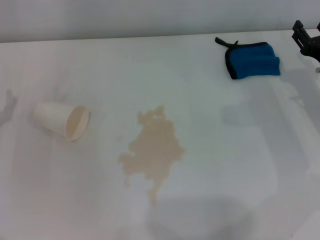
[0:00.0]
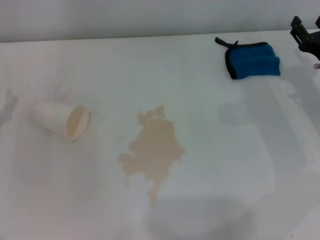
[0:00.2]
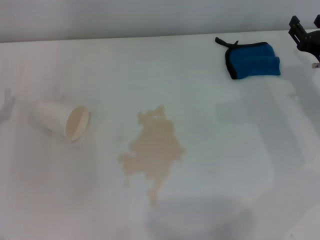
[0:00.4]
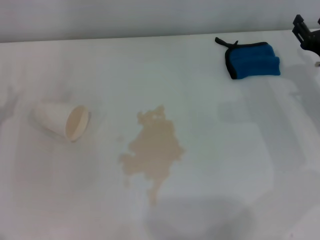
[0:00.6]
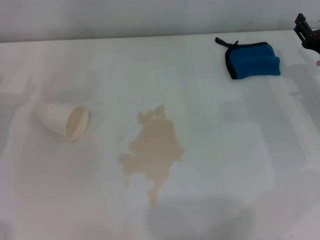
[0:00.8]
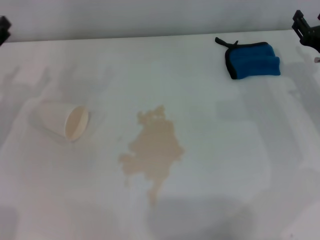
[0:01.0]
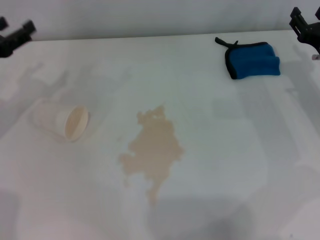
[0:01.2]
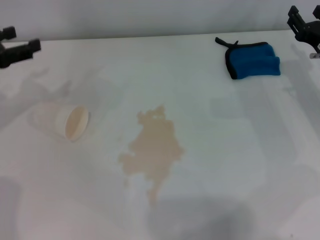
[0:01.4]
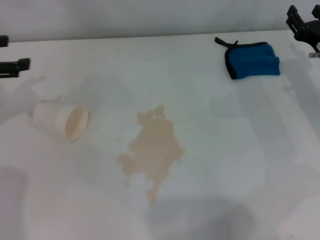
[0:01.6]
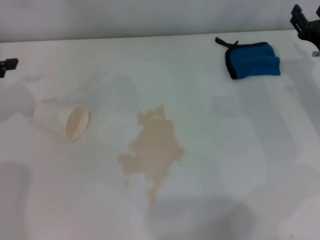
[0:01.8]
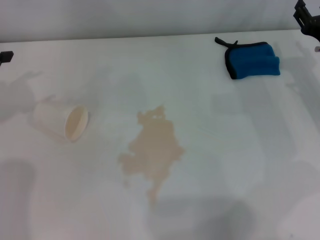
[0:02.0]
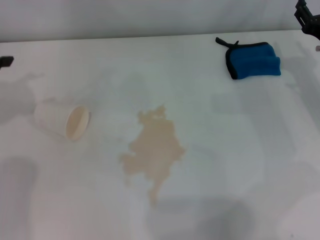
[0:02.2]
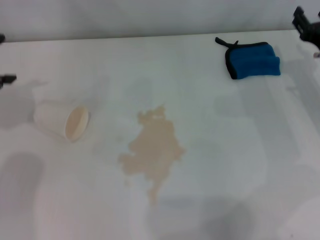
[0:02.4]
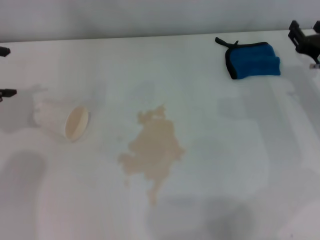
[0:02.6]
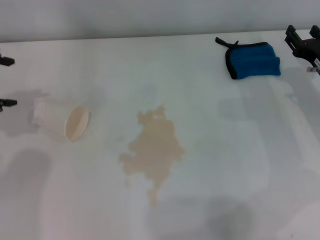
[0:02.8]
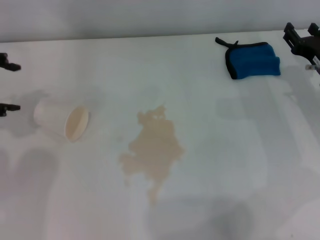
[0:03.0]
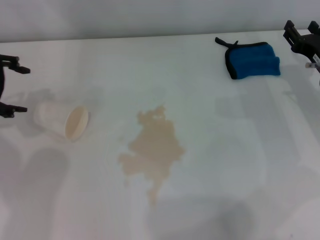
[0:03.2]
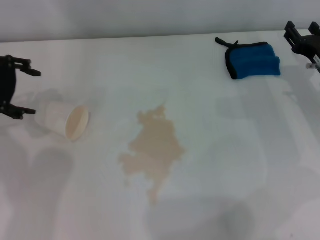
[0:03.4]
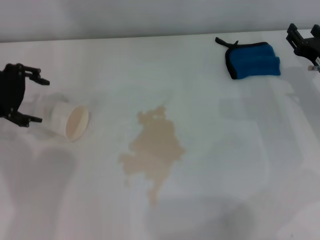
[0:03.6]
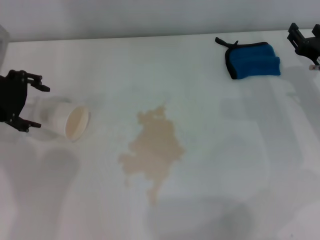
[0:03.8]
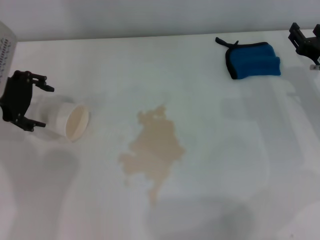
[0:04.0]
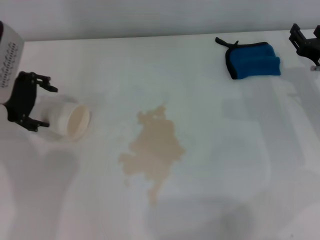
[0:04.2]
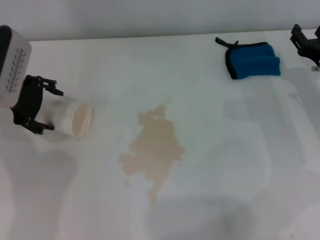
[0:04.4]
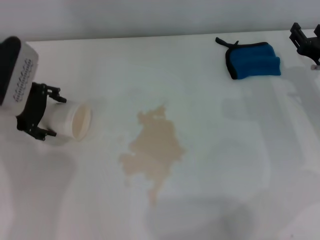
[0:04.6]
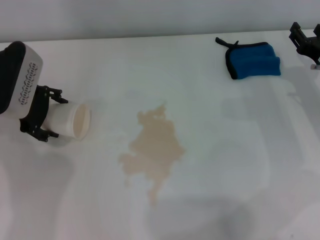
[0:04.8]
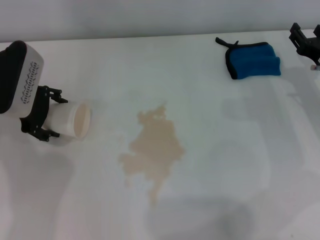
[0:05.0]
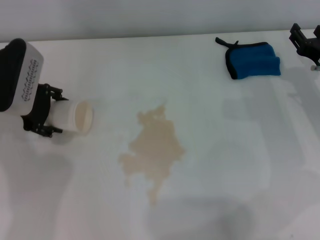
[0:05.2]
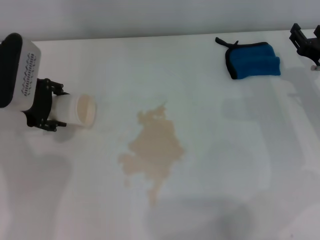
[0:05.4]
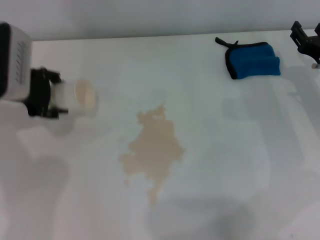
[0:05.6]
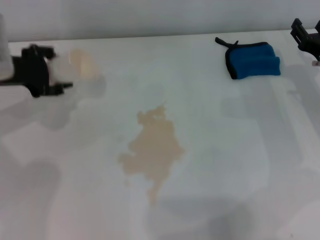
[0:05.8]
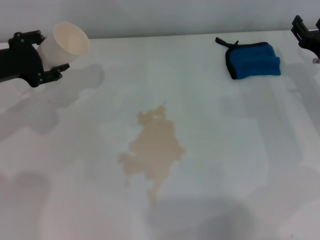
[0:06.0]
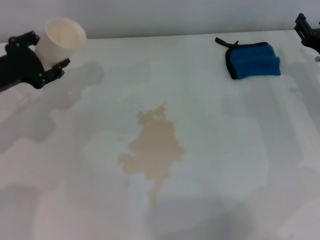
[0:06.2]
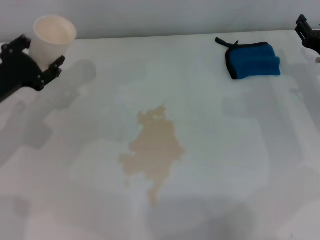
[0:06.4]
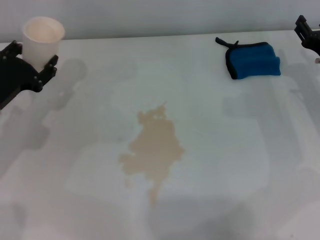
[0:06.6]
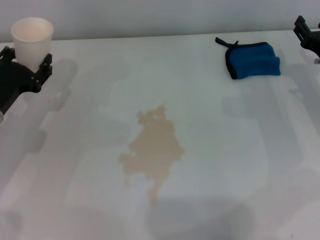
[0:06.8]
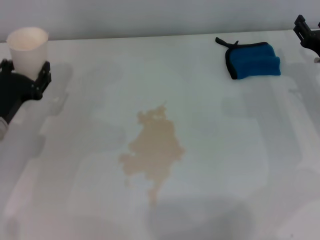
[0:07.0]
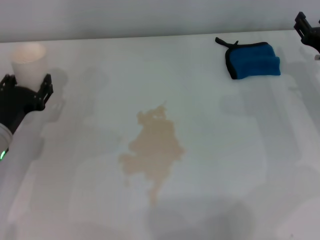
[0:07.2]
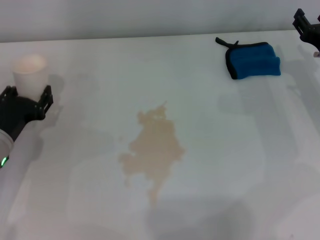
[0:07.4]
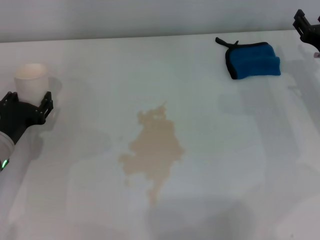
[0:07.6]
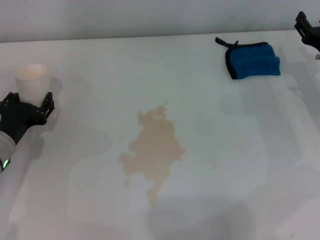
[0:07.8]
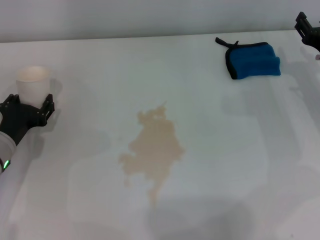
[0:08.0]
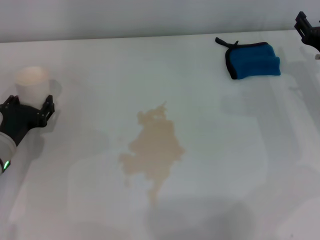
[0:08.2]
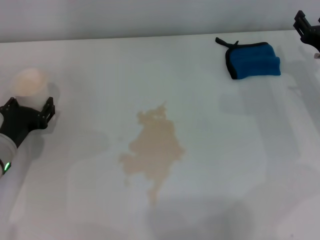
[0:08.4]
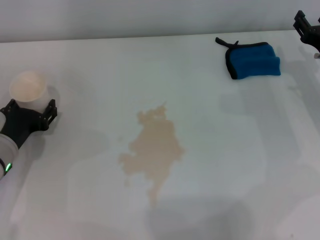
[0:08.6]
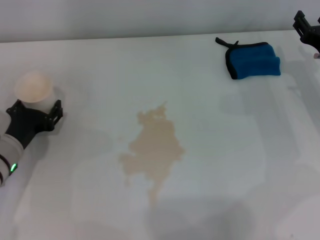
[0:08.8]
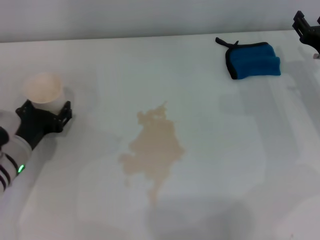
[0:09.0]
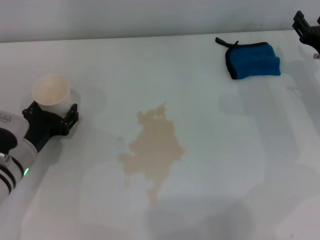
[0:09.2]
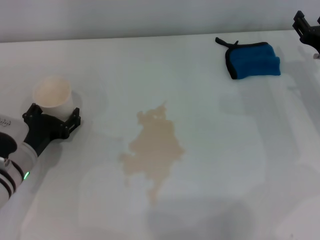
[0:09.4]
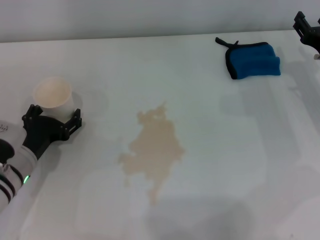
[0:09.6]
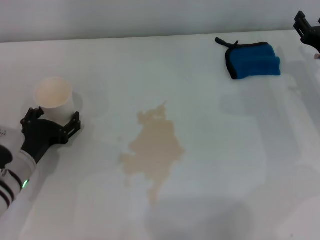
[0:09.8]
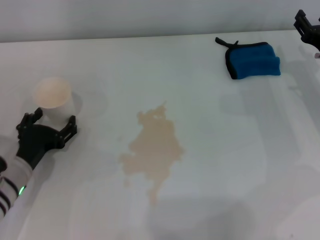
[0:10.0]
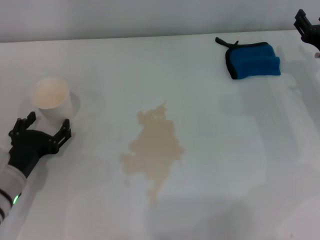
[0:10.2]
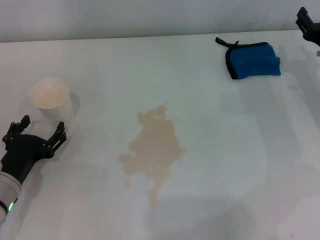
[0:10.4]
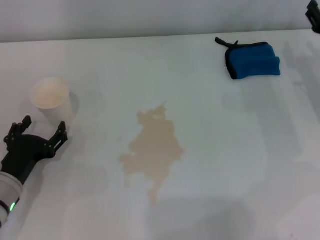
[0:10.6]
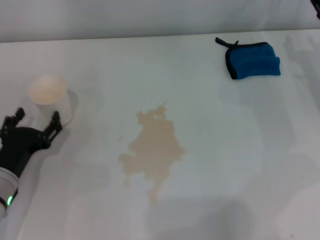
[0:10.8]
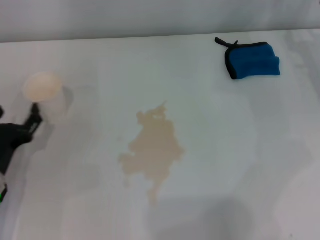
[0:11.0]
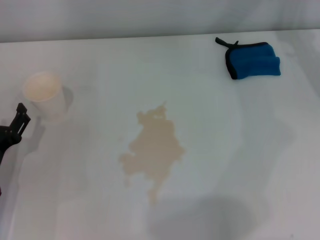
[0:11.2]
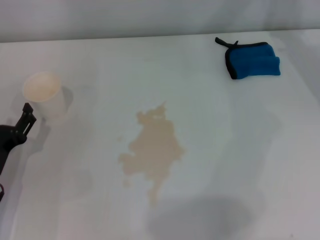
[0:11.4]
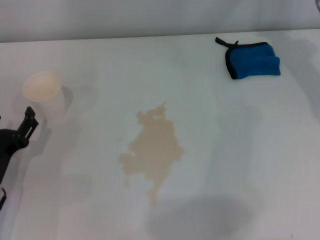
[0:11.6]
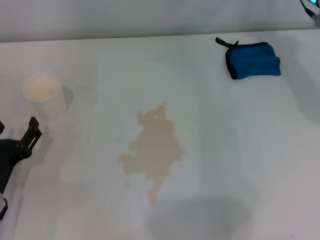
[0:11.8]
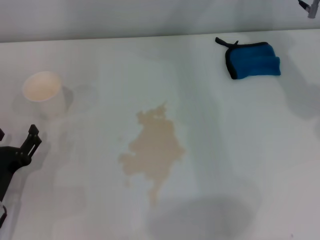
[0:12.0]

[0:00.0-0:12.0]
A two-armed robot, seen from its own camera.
Step, 0:00.0 to 0:05.0: Grasp the paper cup with the left gripper.
Step, 0:05.4 to 0:09.8: Stand the paper cup upright with the left gripper.
0:00.0 to 0:01.6: The left gripper heads upward and forward, covering some 15 cm.
0:03.0 to 0:04.4: The left gripper shifts roughly 10 cm to the right and downward.
0:04.4 to 0:06.0: The left gripper closes.
0:06.0 to 0:07.6: The left gripper travels downward and backward by some 15 cm.
0:07.6 to 0:09.0: The grippers make only small movements.
0:09.0 to 0:10.4: The left gripper goes some 5 cm backward, and opens its fingers.
0:10.4 to 0:12.0: The right gripper moves upward, forward and to the left, roughly 15 cm.

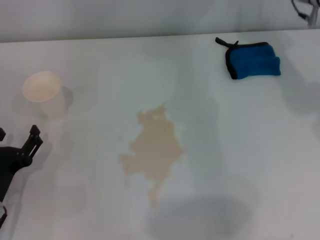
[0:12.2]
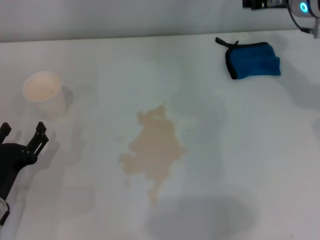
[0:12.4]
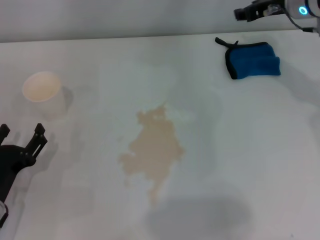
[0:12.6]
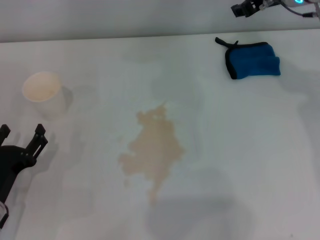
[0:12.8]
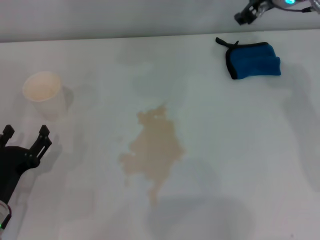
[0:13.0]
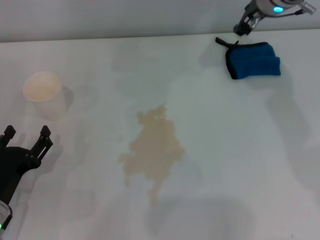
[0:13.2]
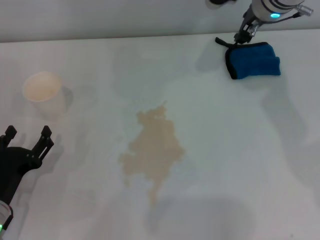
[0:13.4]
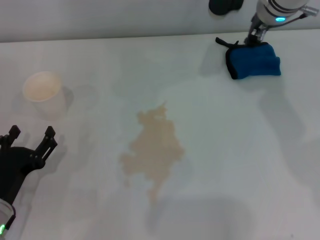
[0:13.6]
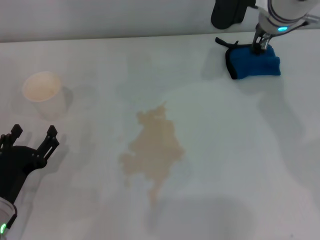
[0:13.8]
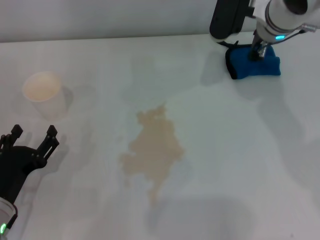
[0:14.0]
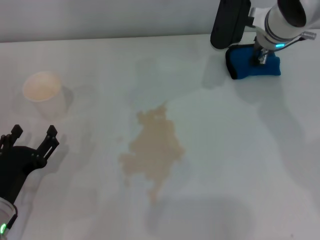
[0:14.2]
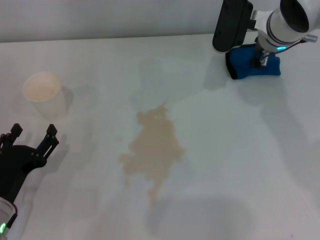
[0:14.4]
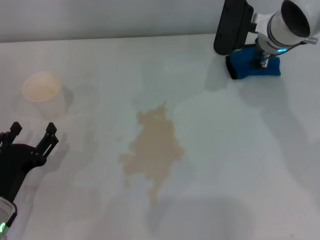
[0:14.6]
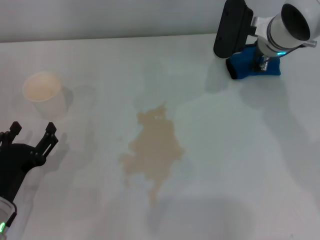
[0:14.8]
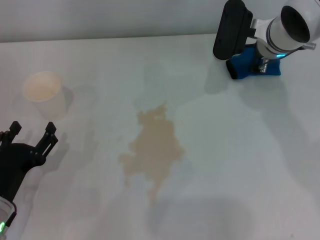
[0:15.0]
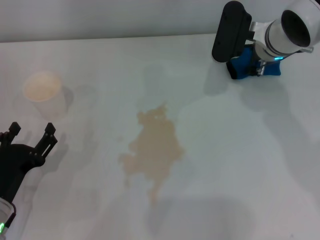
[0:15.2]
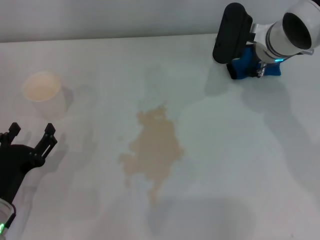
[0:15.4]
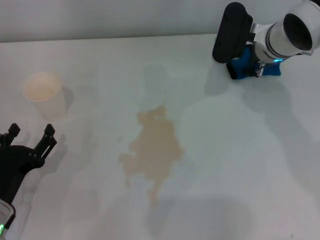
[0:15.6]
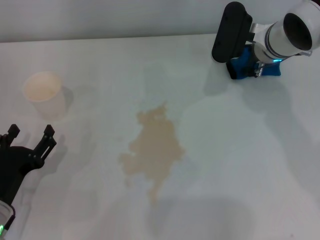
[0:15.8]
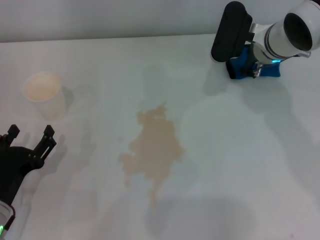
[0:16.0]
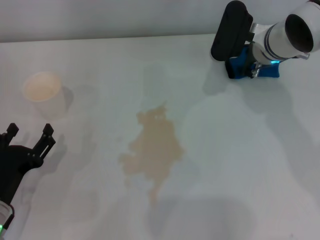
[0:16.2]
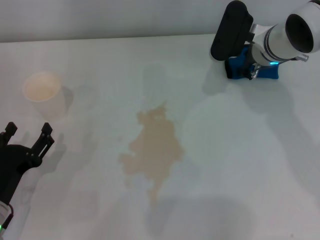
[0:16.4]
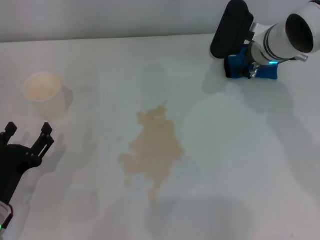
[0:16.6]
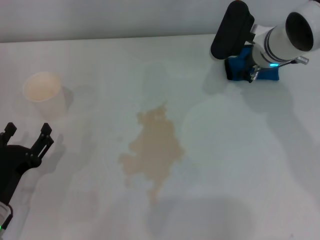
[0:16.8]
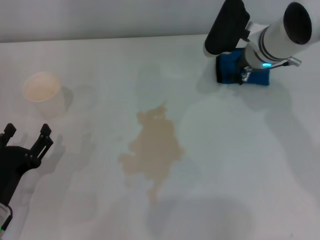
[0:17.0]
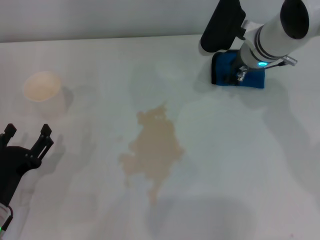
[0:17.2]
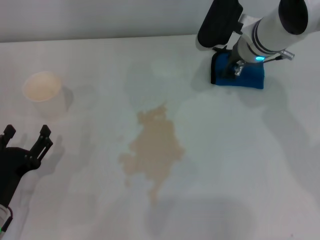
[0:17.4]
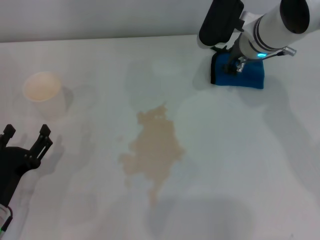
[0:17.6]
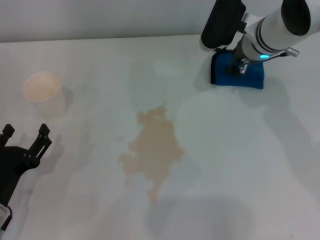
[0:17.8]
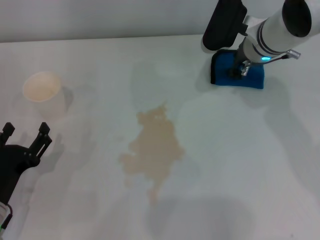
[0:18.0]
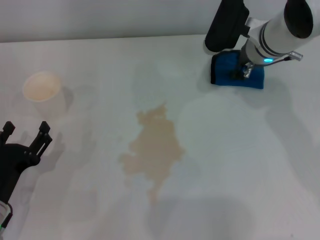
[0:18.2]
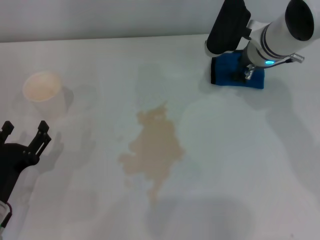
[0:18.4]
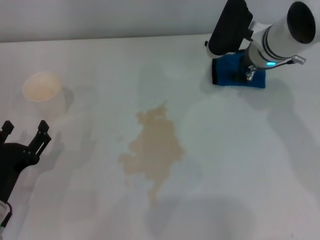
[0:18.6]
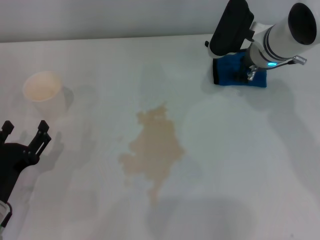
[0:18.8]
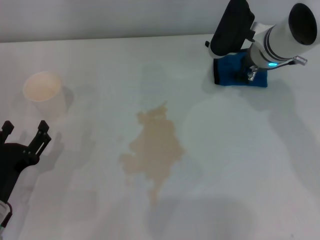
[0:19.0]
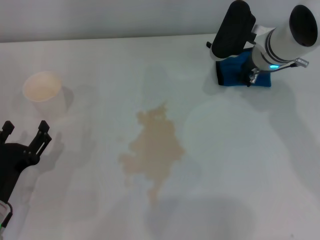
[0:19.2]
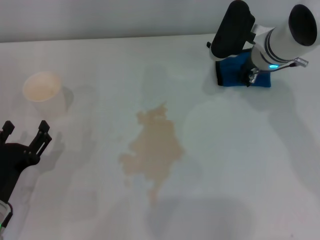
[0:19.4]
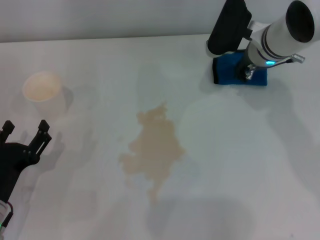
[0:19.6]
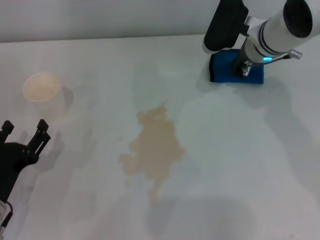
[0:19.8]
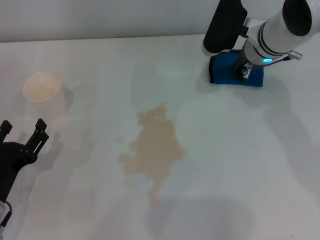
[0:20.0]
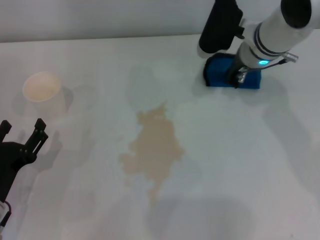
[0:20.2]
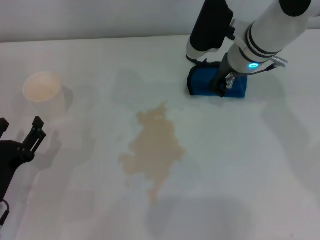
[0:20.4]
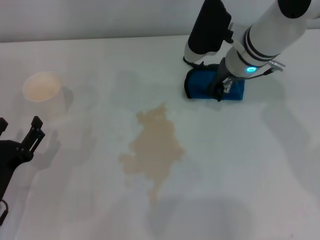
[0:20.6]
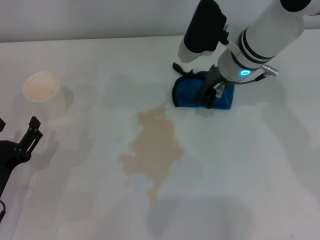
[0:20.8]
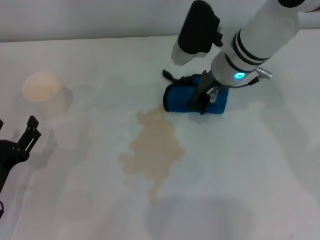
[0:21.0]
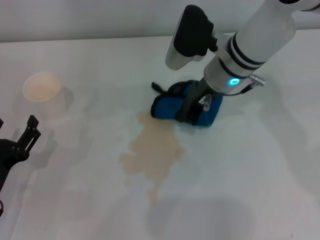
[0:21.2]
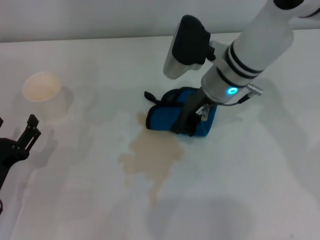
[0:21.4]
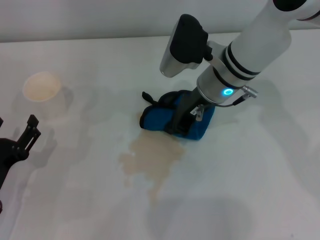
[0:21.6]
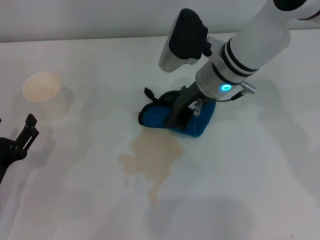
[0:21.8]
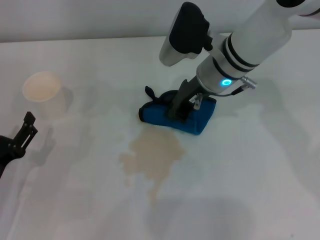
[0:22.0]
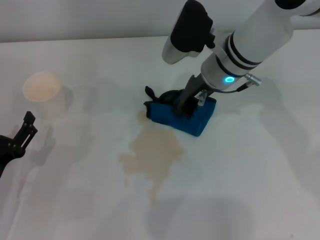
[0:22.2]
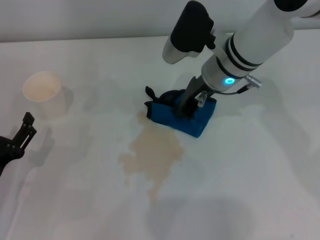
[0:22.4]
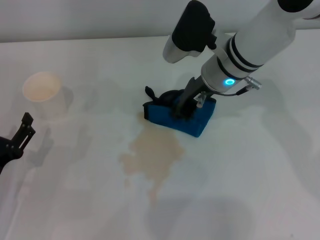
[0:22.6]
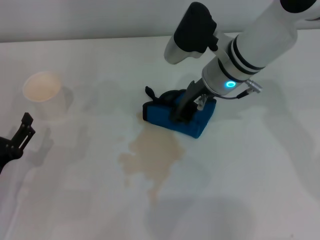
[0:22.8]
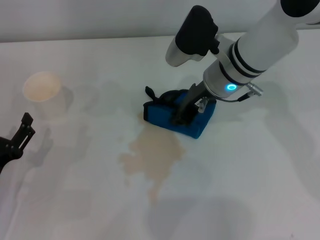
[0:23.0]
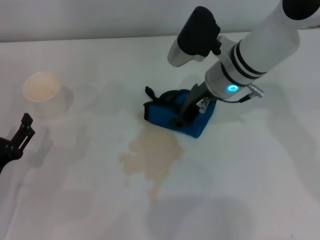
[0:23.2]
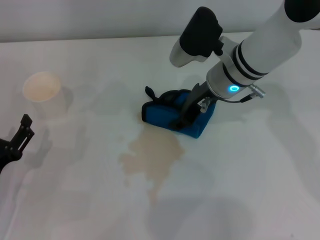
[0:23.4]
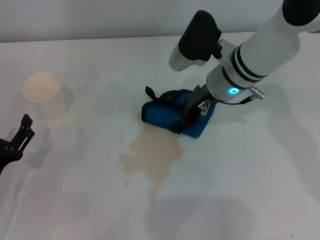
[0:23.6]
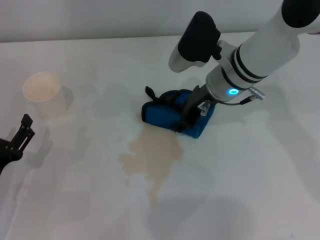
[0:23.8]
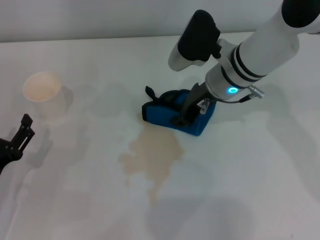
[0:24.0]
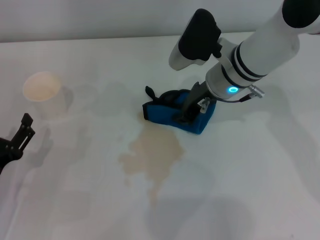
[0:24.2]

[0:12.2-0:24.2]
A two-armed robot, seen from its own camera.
Step, 0:12.2 to 0:18.6: Grasp the rag with the right gripper.
0:12.2 to 0:13.8: The right gripper goes approximately 5 cm to the left.
0:13.8 to 0:15.2: The right gripper moves some 5 cm.
0:15.2 to 0:18.2: There are only small adjustments of the grippers.
0:18.2 to 0:19.8: The right gripper closes its fingers.
0:19.8 to 0:21.2: The right gripper is displaced to the left by roughly 5 cm.
0:21.2 to 0:22.6: The grippers move only a little.
0:22.6 to 0:24.2: The right gripper opens.
